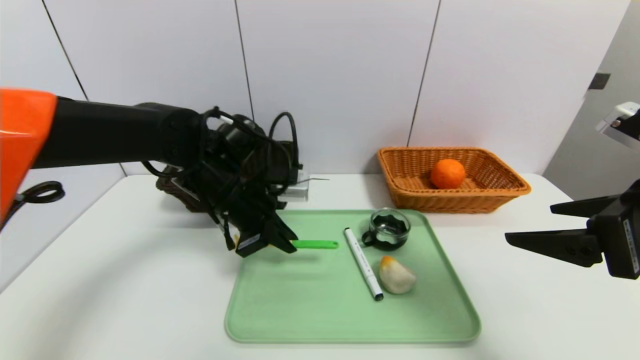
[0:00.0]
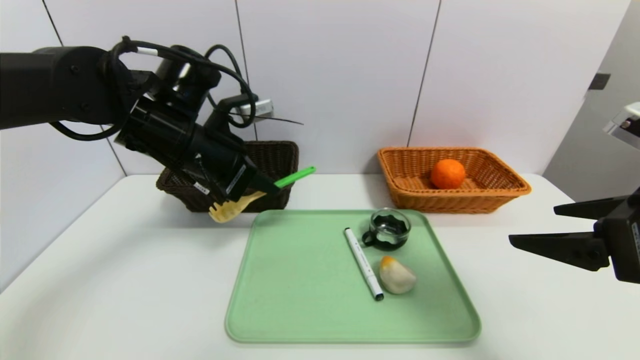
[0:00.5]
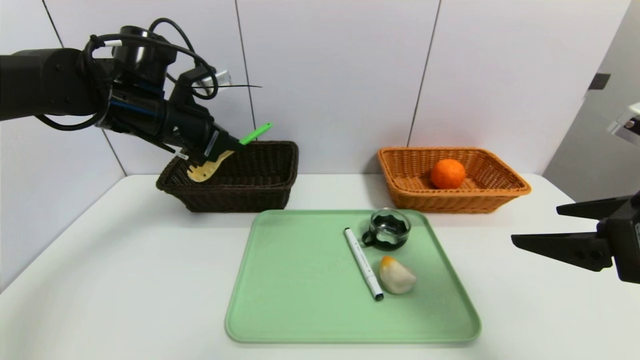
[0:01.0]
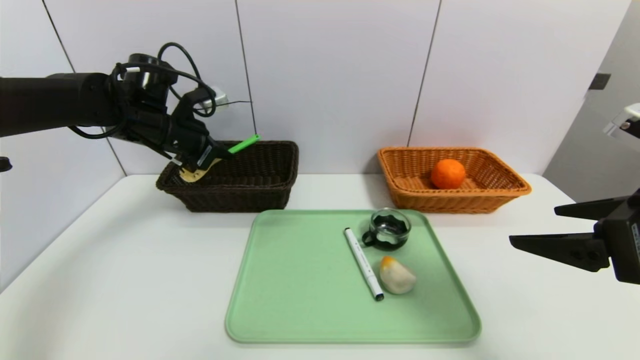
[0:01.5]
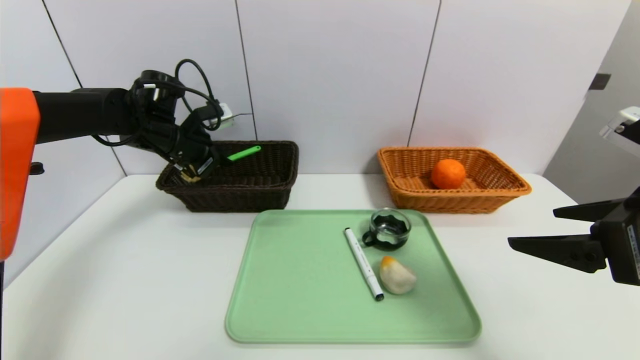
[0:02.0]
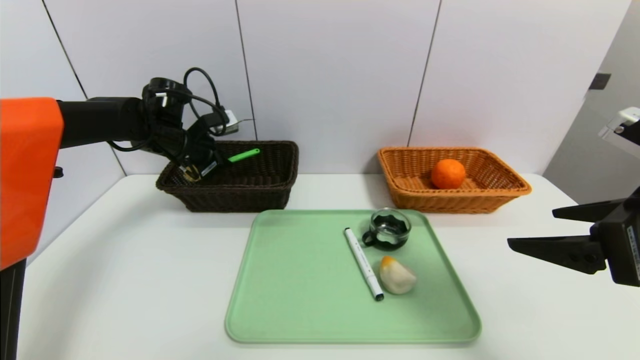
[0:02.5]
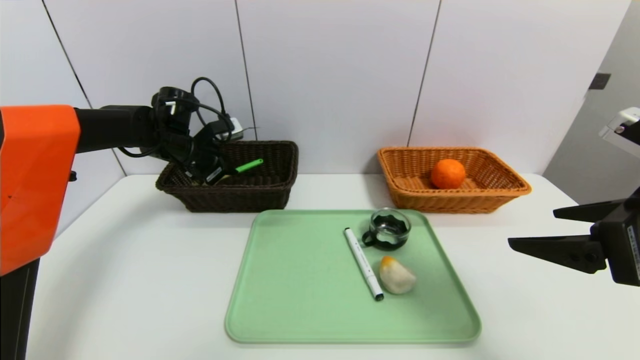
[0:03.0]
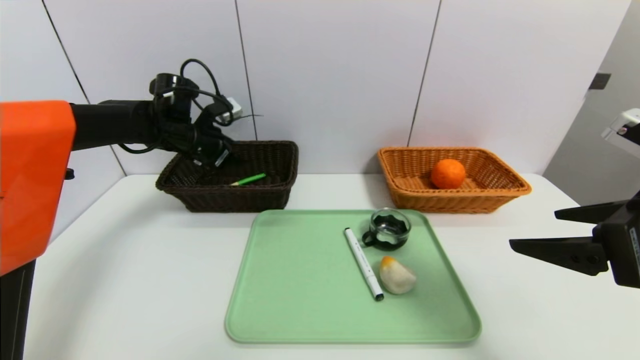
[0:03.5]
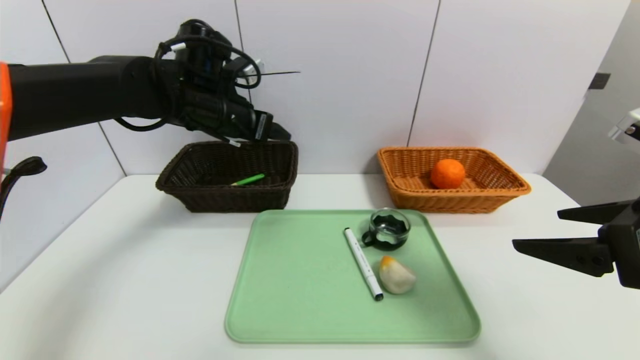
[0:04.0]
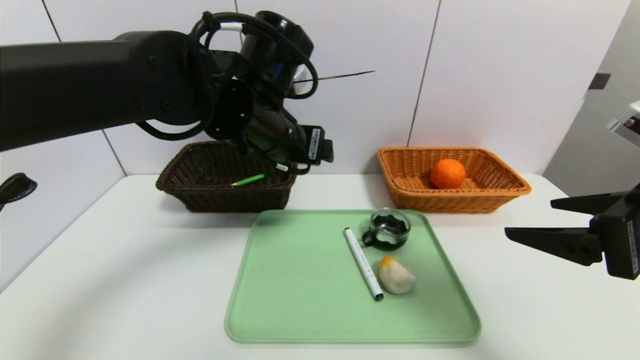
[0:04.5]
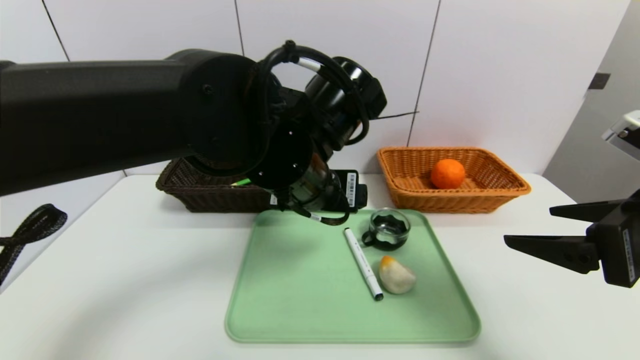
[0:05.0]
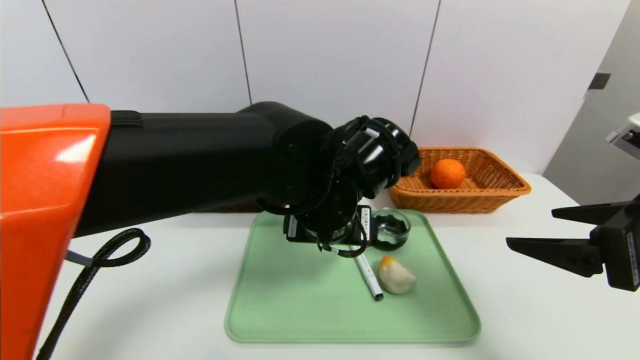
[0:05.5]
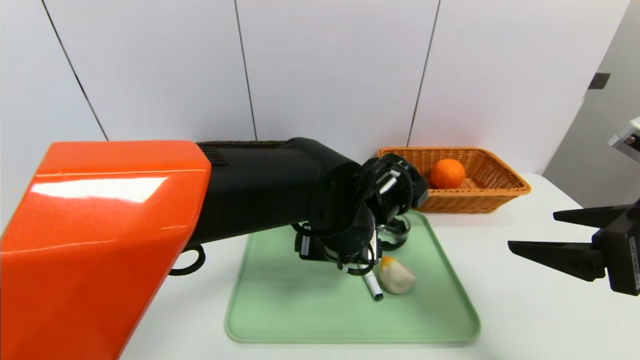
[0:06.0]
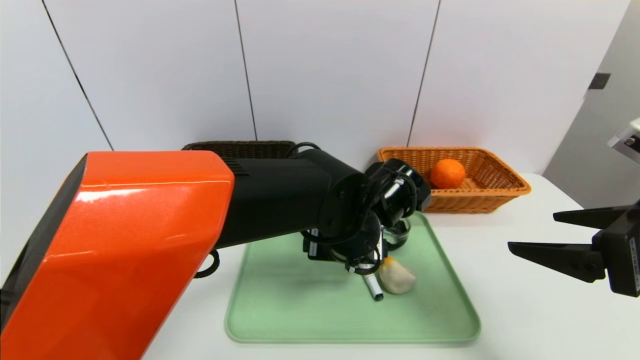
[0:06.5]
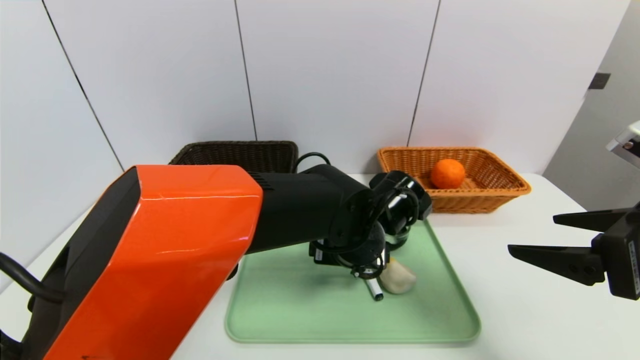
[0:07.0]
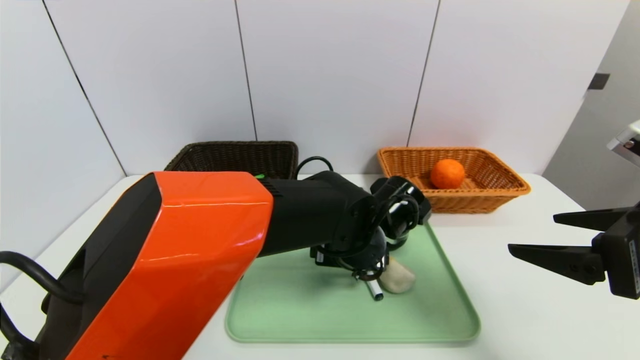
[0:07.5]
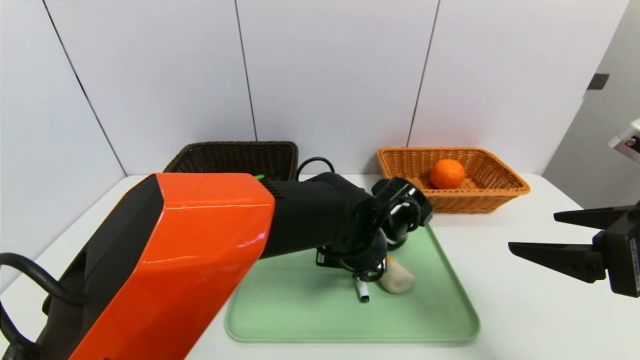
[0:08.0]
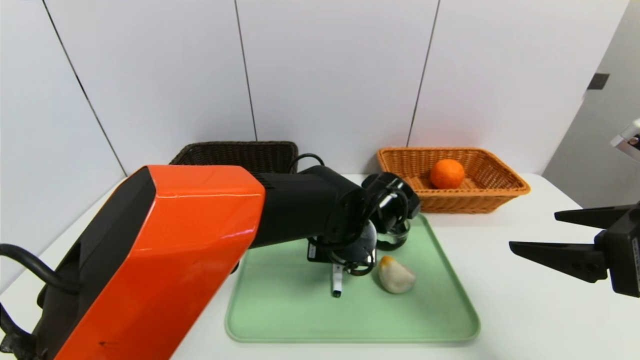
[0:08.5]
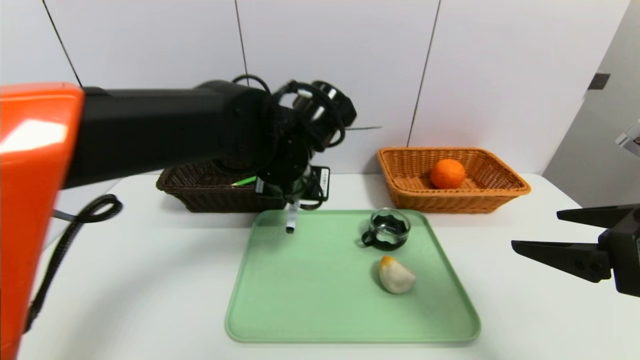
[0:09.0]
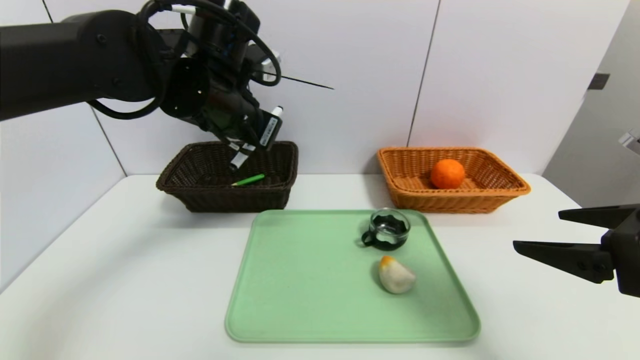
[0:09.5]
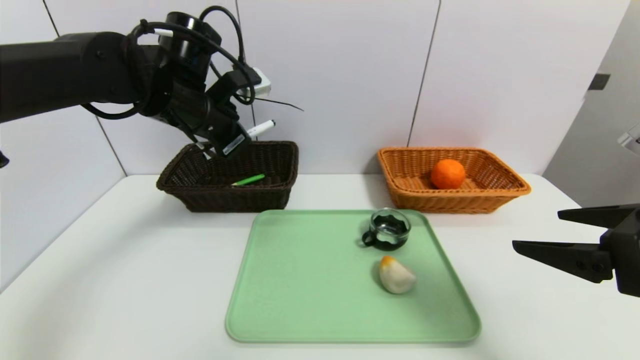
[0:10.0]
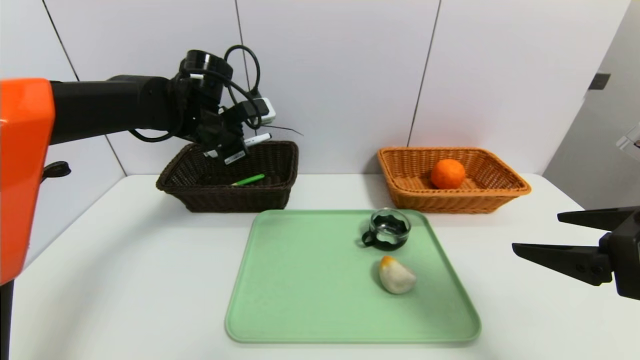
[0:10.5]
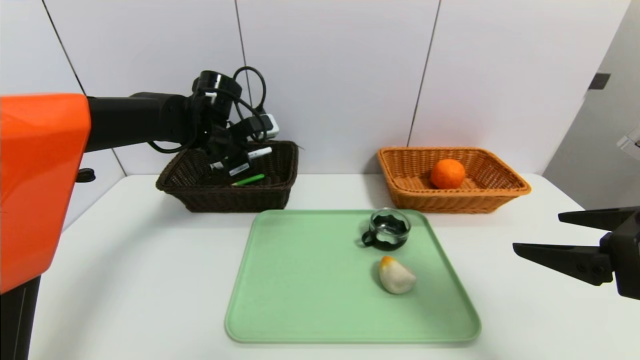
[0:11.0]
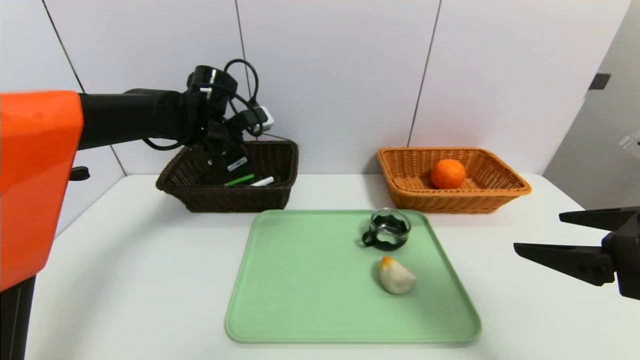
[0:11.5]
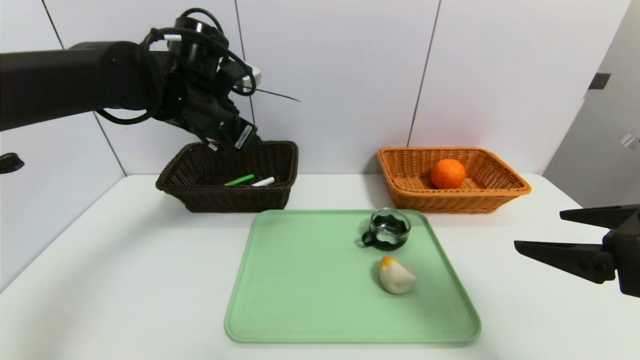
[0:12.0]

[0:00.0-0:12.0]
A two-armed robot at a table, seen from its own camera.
Task of the whole recording: place the food in the right basket with the right gripper, and place the non food items in the left basket with the left gripper.
Step, 0:00.0 to 0:03.5: Grasp the back scratcher and put it in the left basket.
0:00.0 to 0:02.0: The left gripper shifts some 15 cm to the left and forward.
0:02.0 to 0:04.0: The left gripper is displaced to the right and upward by roughly 10 cm, and opens up.
0:04.0 to 0:06.0: The left gripper moves to the right, backward and downward, roughly 25 cm.
0:06.0 to 0:08.0: The left gripper ends up some 5 cm from where it was, and closes up.
0:08.0 to 0:10.0: The left gripper moves to the left and upward, roughly 25 cm, and closes its fingers.
0:10.0 to 0:12.0: The left gripper opens up.

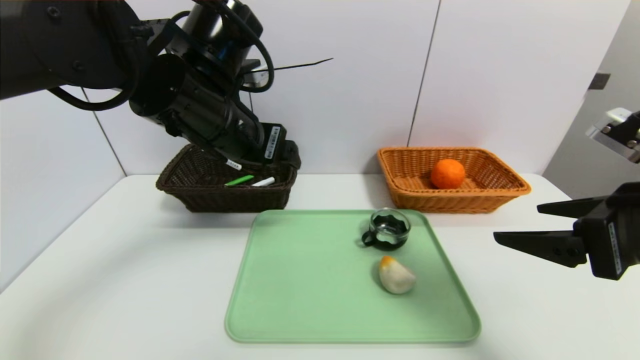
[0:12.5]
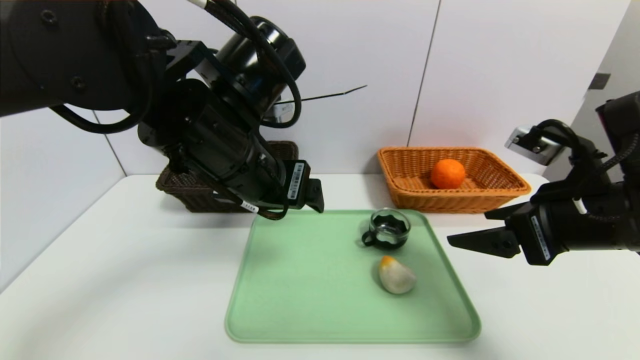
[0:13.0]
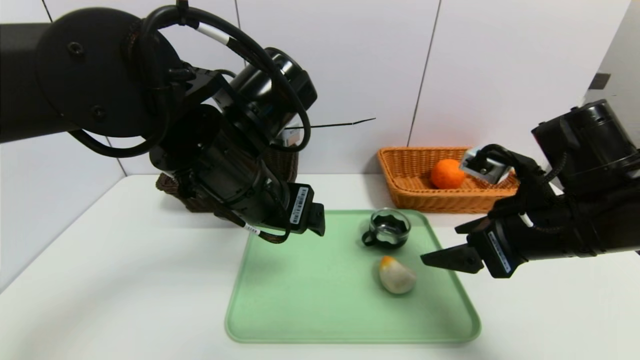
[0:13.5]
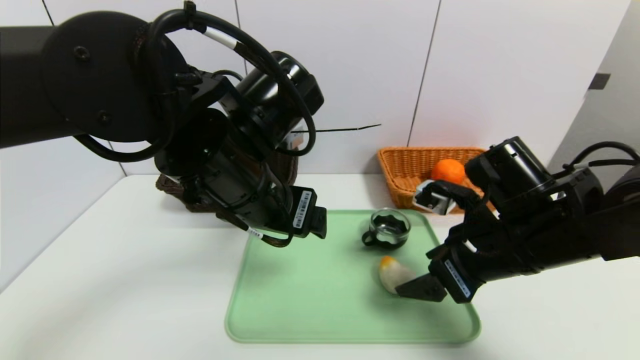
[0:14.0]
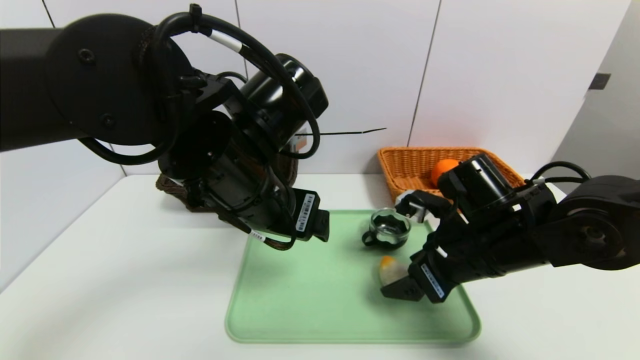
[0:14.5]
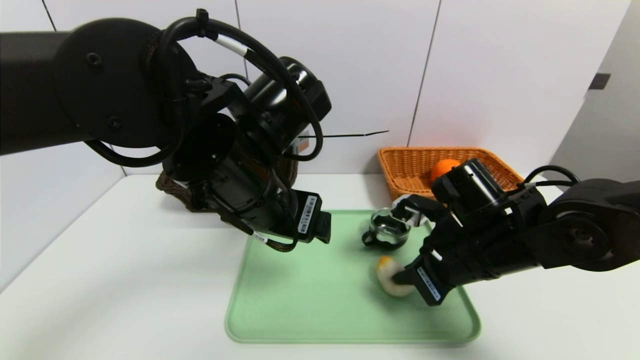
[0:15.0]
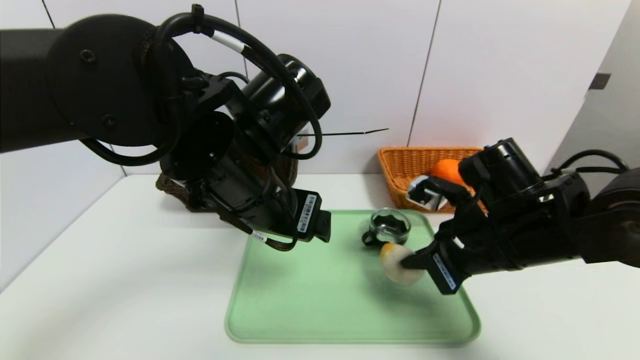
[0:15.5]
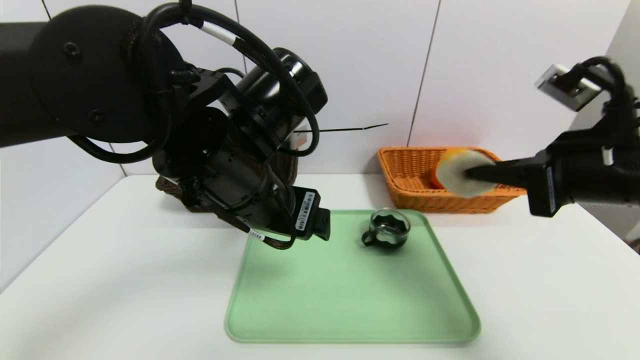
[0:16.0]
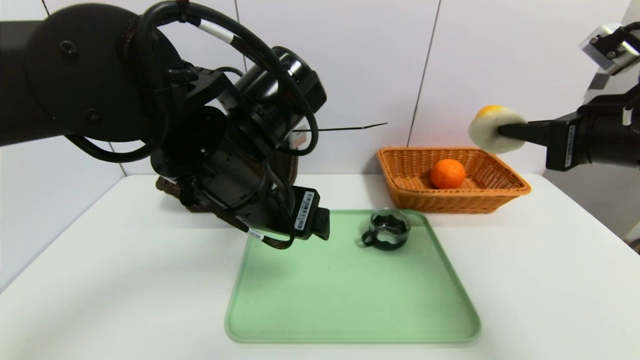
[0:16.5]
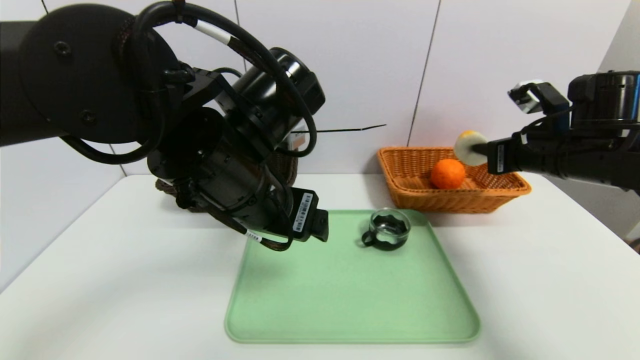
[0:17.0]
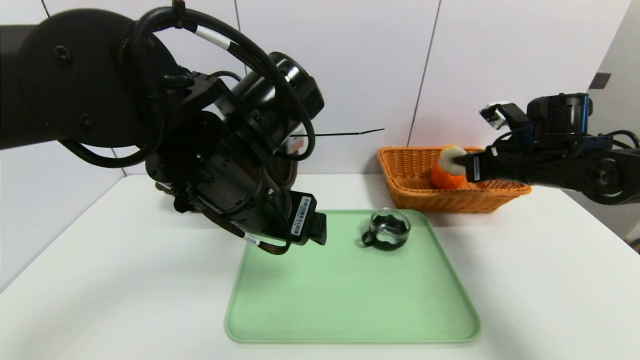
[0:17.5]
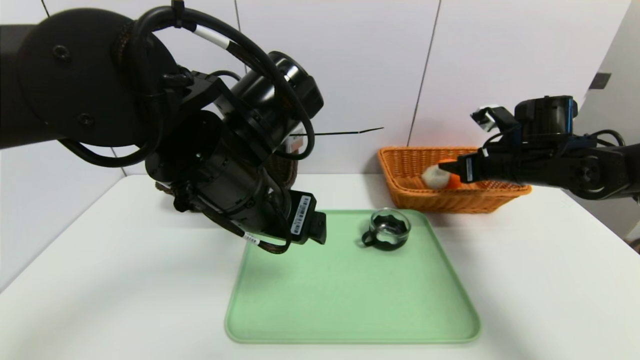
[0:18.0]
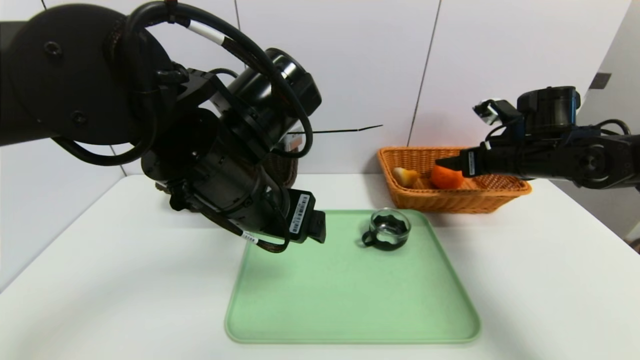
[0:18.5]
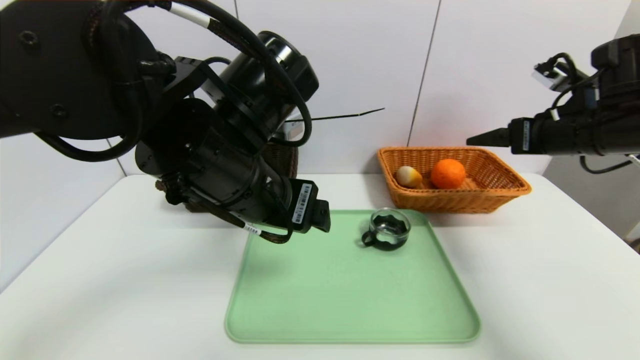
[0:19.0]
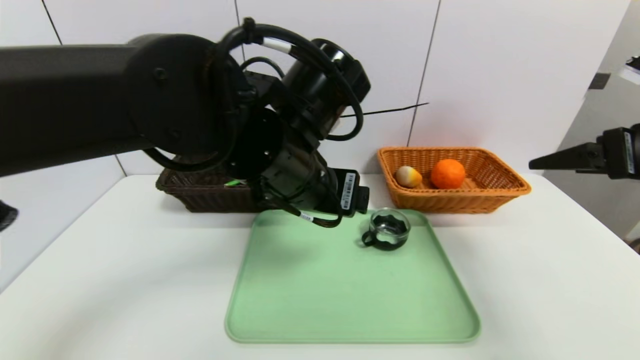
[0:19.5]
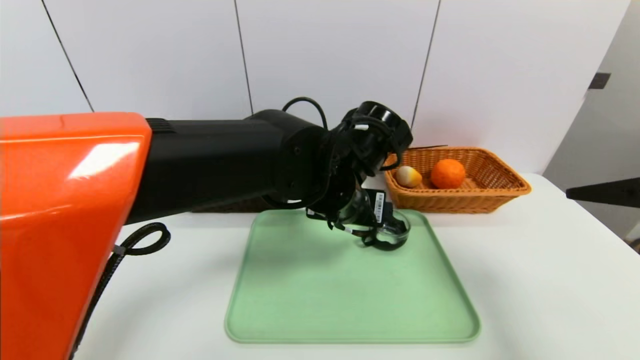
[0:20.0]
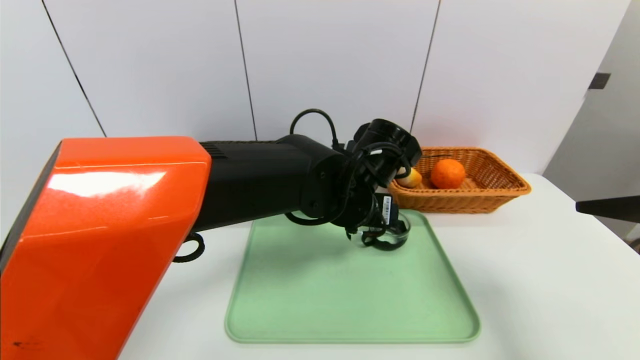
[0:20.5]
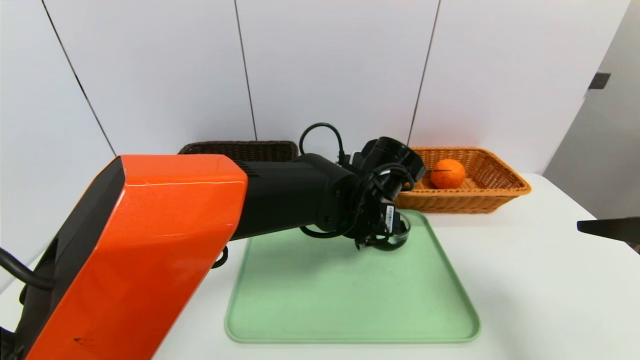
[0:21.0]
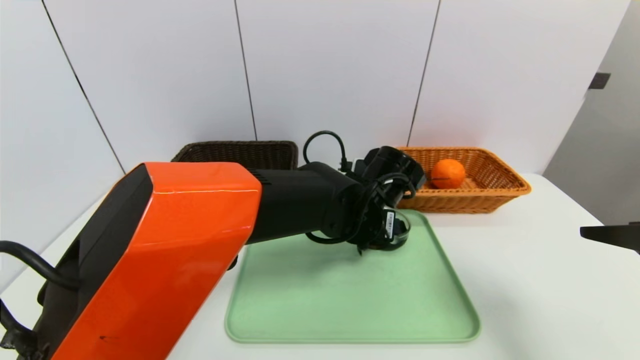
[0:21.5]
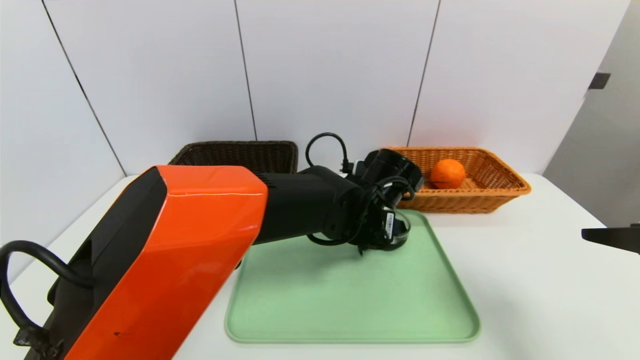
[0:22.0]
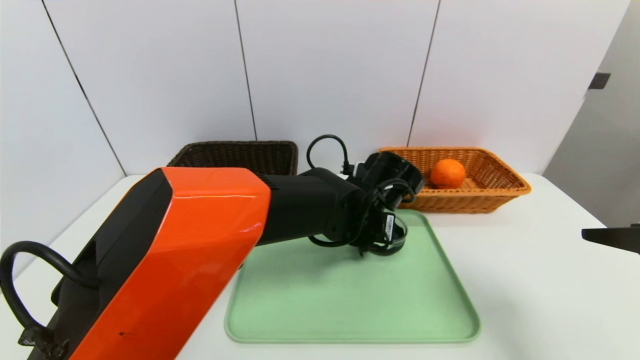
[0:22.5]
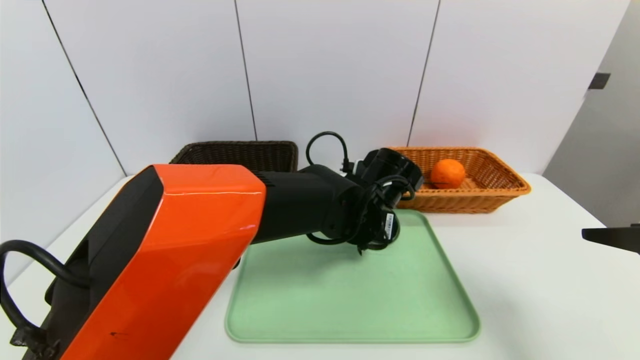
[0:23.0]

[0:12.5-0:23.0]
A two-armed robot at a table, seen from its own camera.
Task of the whole recording: place the food in the right basket with the right gripper, and place the non food items in the left basket with the left gripper.
Step, 0:12.5 to 0:18.5: Grasp the egg yolk pastry and put it in the right basket.
0:12.5 to 0:14.5: The right gripper is displaced downward, to the left and forward by roughly 15 cm; the left gripper shifts some 5 cm backward.
0:14.5 to 0:16.5: The right gripper heads upward and to the right, covering approximately 15 cm, and closes its fingers.
0:16.5 to 0:19.0: The right gripper moves forward, approximately 10 cm, and opens its fingers.
0:19.0 to 0:21.0: The left gripper heads to the right, downward and forward, covering approximately 20 cm. The right gripper travels backward by about 20 cm.
0:21.0 to 0:23.0: The left gripper closes.
